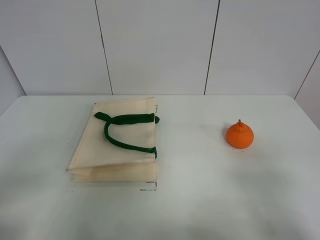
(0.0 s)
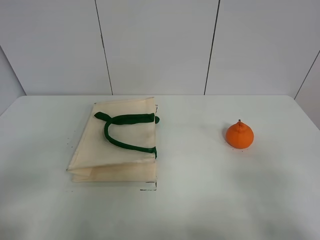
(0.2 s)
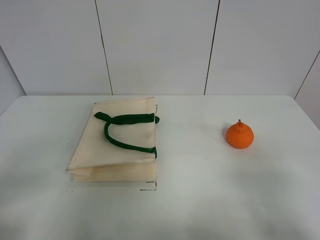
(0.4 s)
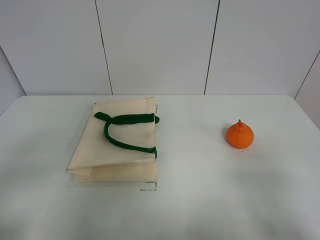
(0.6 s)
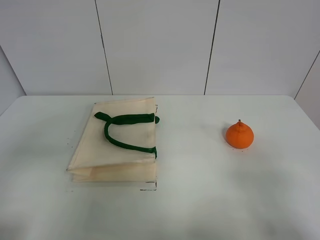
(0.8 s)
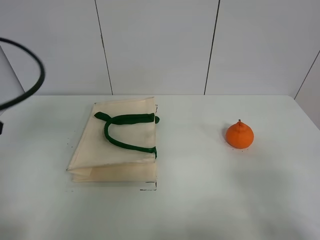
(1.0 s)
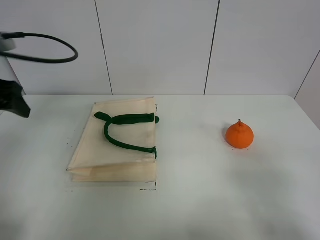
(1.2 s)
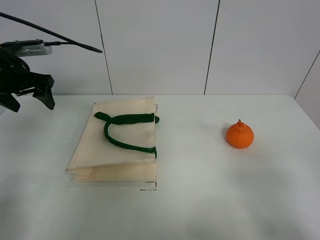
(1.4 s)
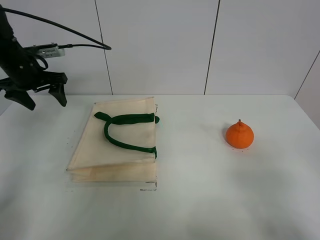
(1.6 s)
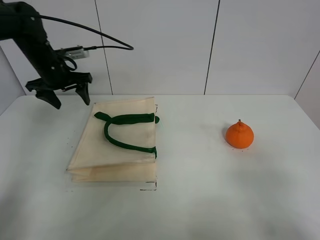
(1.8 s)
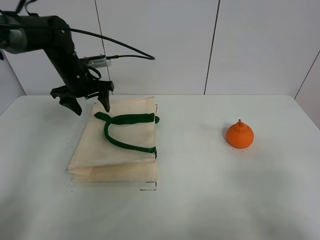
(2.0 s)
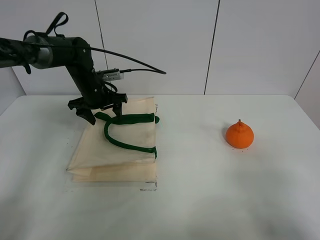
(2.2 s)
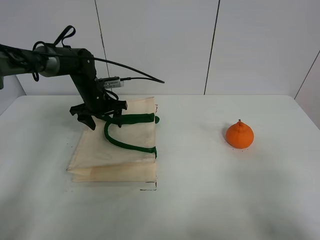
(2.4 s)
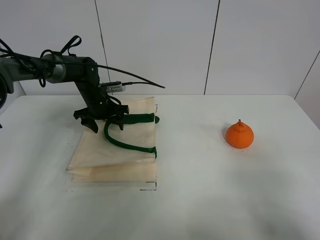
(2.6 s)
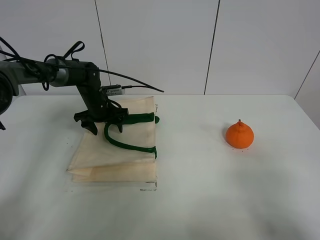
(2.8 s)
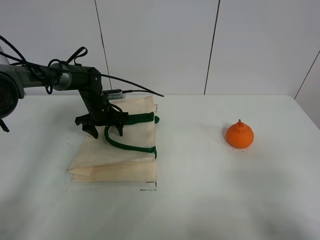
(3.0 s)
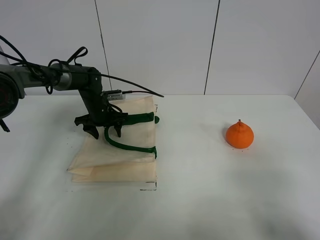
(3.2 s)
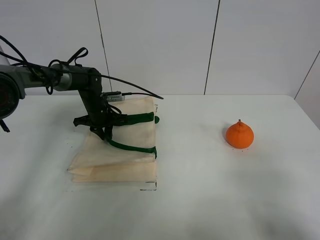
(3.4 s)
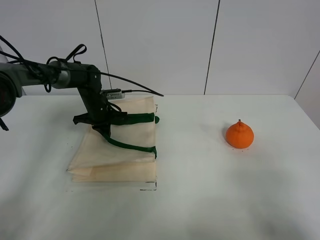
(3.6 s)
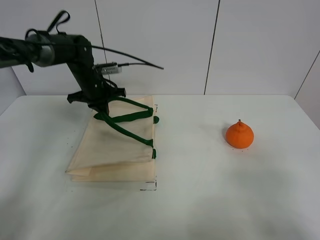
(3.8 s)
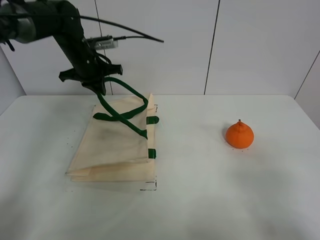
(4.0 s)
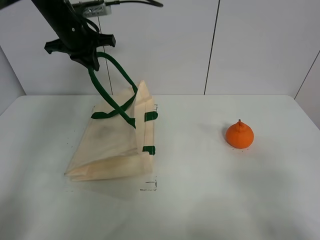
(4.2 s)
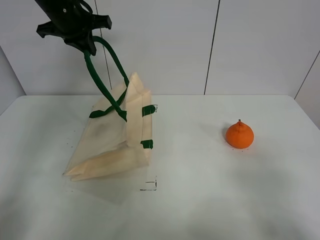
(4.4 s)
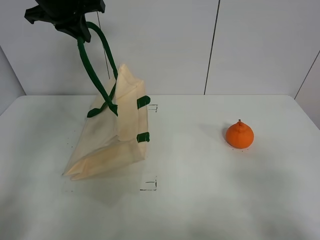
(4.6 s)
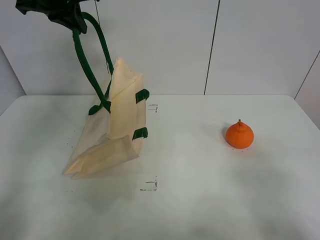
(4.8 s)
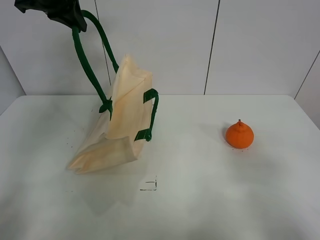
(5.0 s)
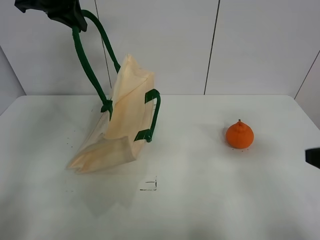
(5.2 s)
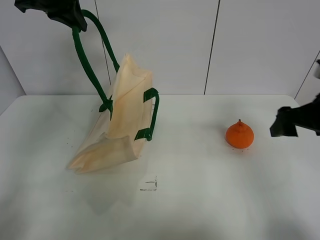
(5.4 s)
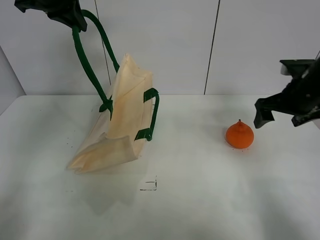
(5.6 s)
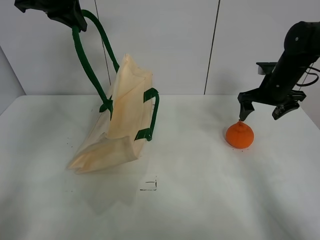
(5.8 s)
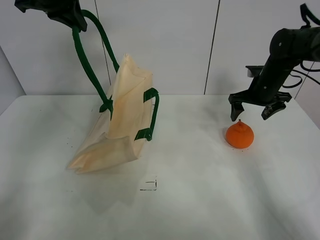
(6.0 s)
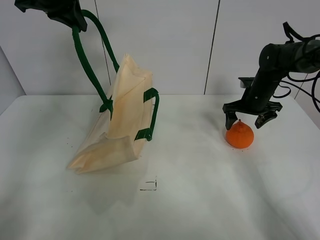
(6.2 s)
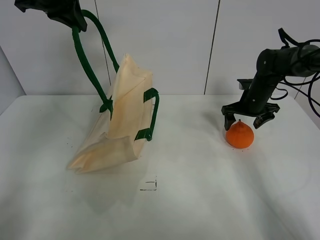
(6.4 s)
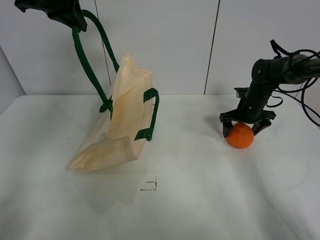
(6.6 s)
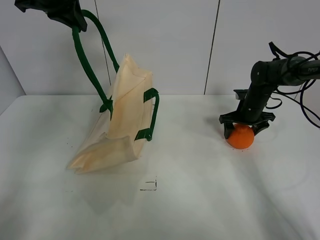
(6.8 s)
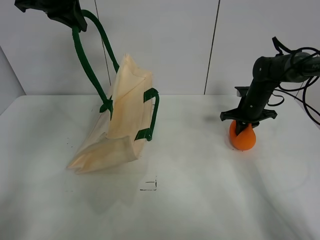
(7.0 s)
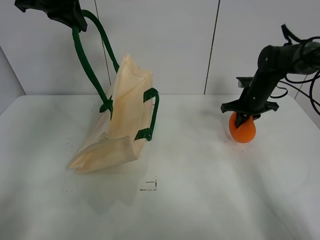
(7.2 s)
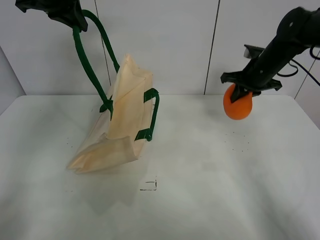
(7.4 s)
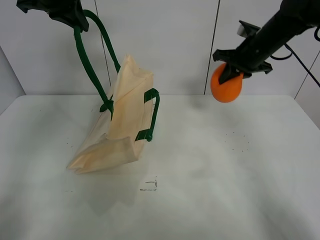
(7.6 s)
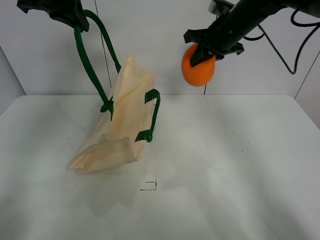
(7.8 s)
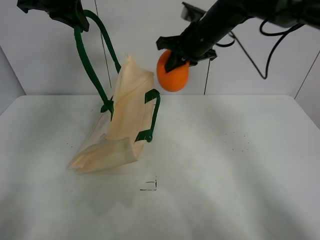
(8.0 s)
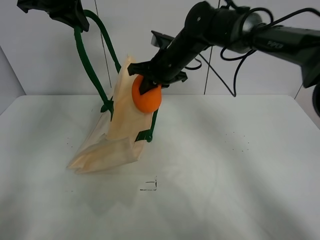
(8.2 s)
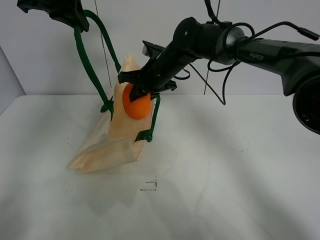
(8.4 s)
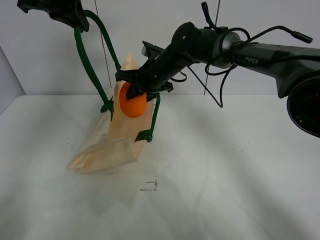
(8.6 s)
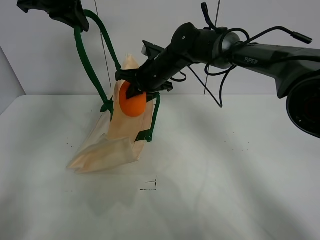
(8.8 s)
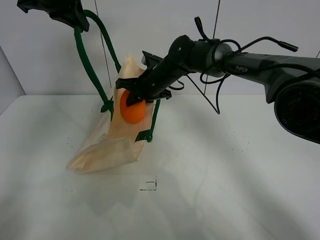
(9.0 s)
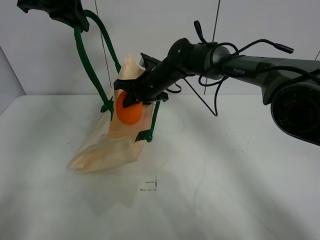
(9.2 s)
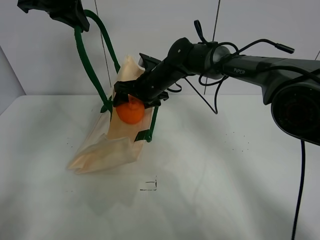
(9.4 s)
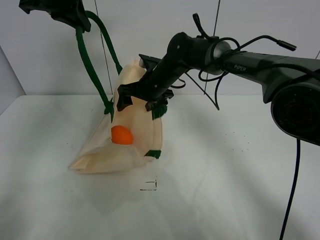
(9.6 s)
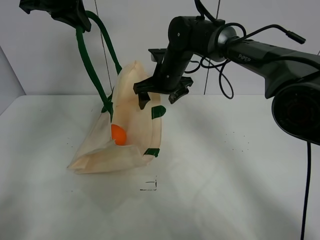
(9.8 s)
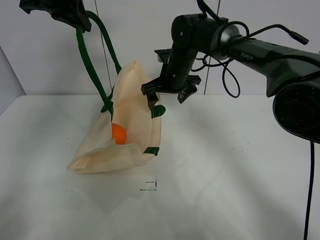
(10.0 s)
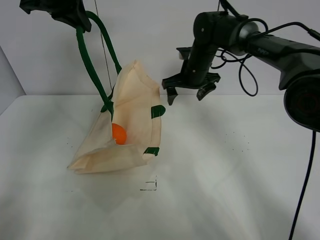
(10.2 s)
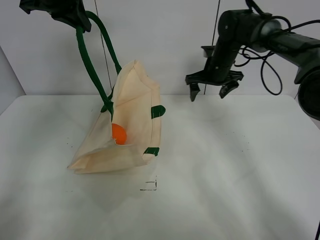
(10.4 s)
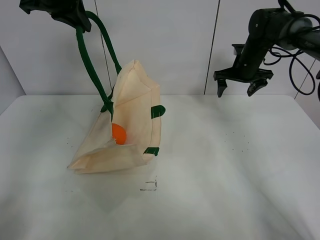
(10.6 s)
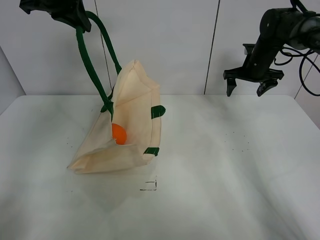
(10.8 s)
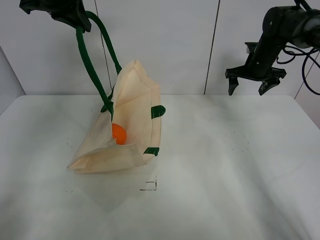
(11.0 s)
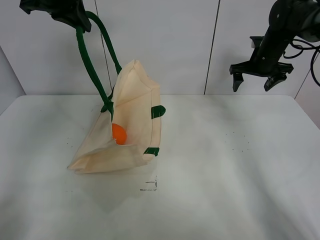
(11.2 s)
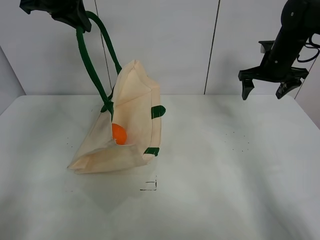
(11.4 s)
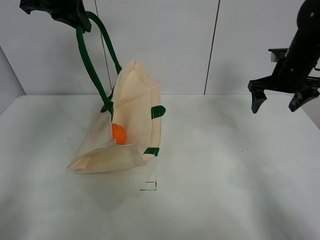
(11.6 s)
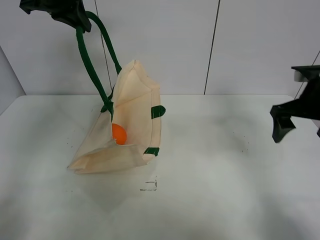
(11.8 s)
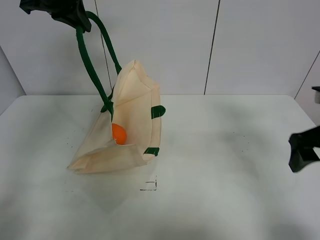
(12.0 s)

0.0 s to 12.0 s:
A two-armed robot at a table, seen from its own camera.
Task of the whole recording: open the white linen bag and put the orange in the bag.
Step, 0.0 to 4.8 s: Lift the handbag with left gripper.
Step, 5.0 to 6.8 s: Grasp the orange with right gripper.
Step, 7.0 to 10.2 s: Place the orange in the handbag with right gripper.
0.0 to 1.6 s: The left gripper goes about 40 cm forward.
1.6 to 3.0 s: The left gripper heads downward and to the right, covering some 20 cm.
3.0 to 4.4 s: The left gripper moves upward, approximately 25 cm, and closes.
4.4 to 6.0 s: The right gripper heads forward, covering some 40 cm. Meanwhile the left gripper changes place by approximately 5 cm.
6.0 to 7.6 s: The right gripper heads upward and to the left, covering approximately 10 cm, and closes its fingers.
7.6 to 9.0 s: The right gripper shifts roughly 25 cm to the left and downward.
9.0 to 10.4 s: The right gripper moves to the right, about 15 cm, and opens up.
10.4 to 12.0 s: The right gripper is displaced backward and to the right by approximately 30 cm.

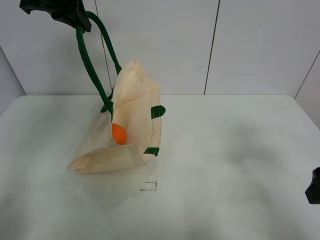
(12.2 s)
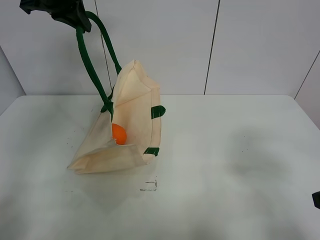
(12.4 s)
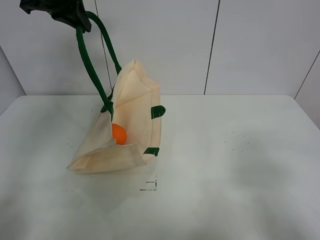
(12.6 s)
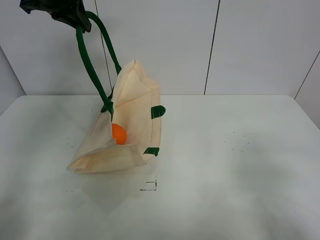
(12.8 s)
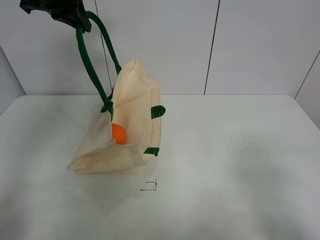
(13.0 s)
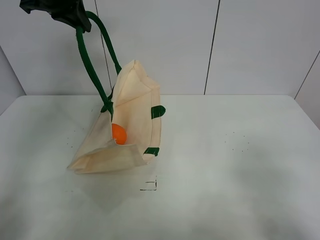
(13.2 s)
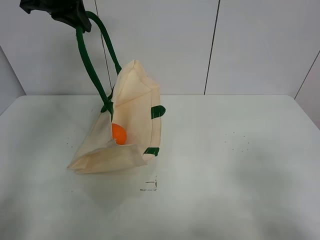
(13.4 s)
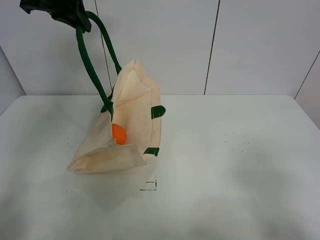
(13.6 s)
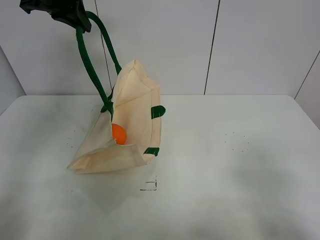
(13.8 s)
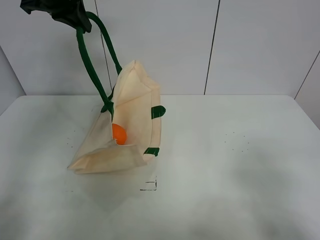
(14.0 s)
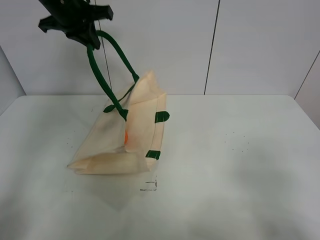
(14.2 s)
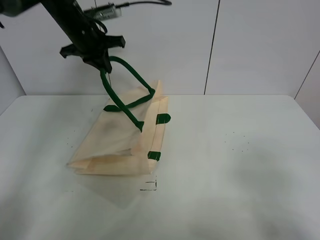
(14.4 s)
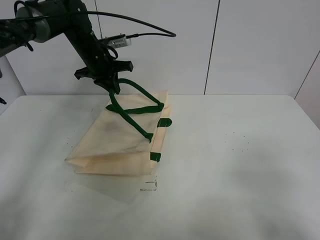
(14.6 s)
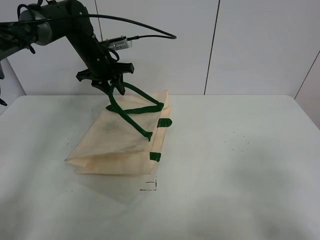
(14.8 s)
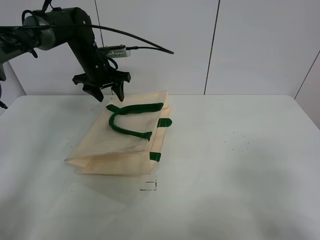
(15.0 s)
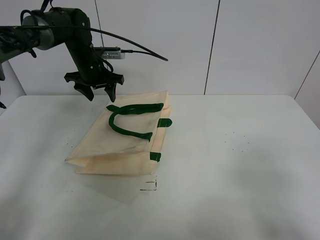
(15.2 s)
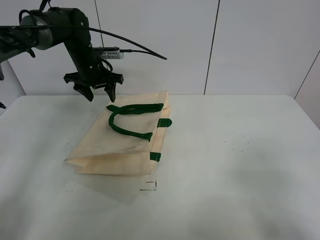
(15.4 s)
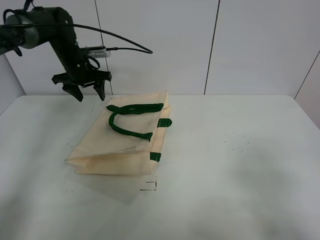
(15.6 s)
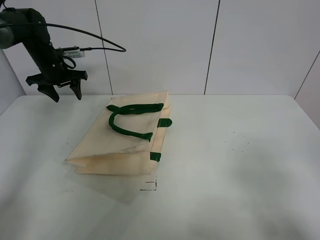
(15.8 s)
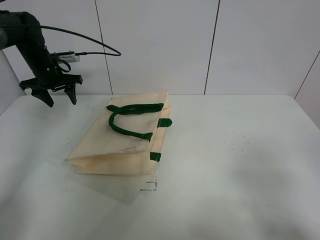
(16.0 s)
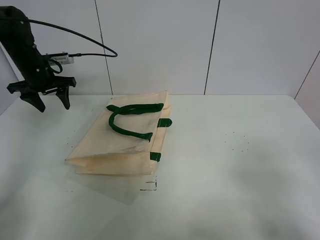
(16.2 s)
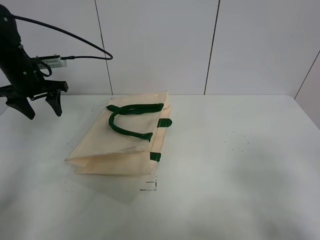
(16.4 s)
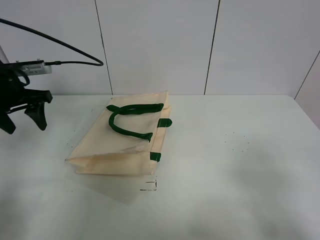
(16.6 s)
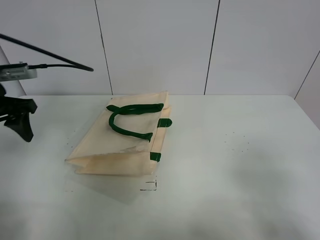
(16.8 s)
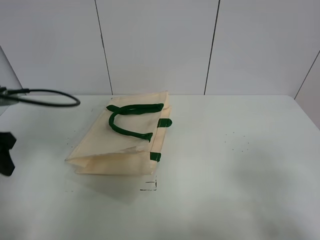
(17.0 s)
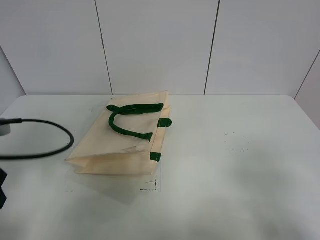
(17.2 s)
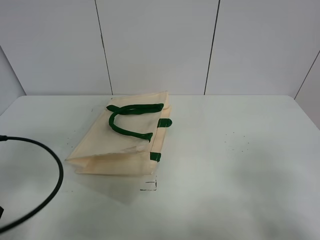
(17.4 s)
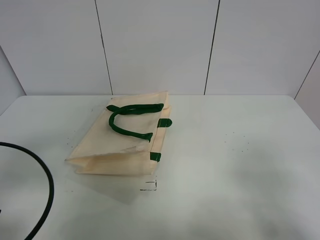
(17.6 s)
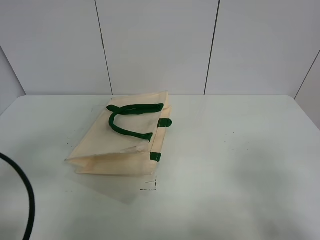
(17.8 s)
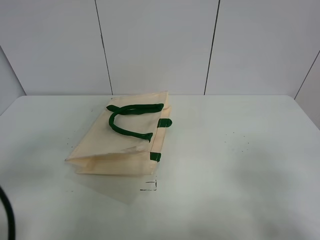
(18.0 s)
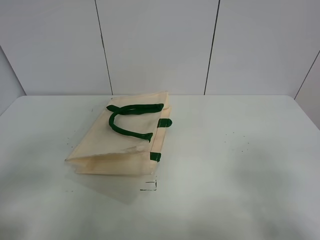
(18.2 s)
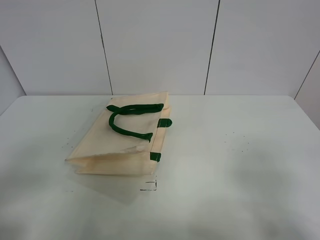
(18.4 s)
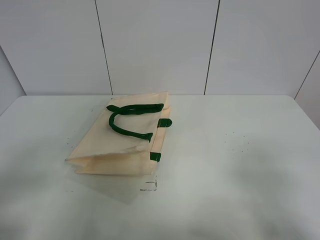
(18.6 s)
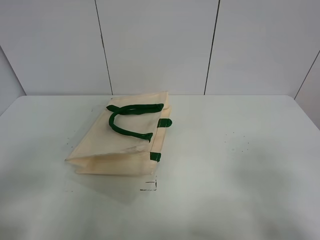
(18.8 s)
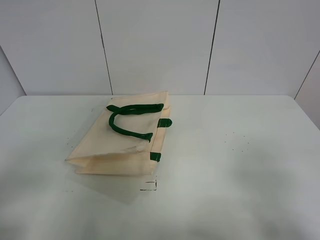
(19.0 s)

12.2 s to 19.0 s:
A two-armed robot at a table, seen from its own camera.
Task of the whole recording: open the white linen bag and put the orange in the bag.
Step, 12.2 to 15.2 s: Put down the handbag with left gripper.
12.2 to 13.6 s: The right gripper shifts approximately 15 cm backward.
13.6 to 15.0 s: The left gripper is displaced downward and forward by some 20 cm, and opens.
15.0 to 16.2 s: The left gripper heads to the left, covering some 15 cm.
16.2 to 17.6 s: The left gripper shifts about 35 cm backward.
17.6 to 19.0 s: The left gripper moves backward, about 10 cm.
